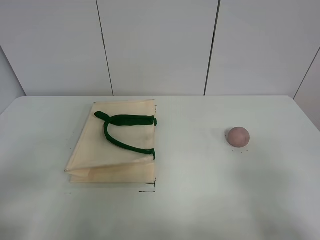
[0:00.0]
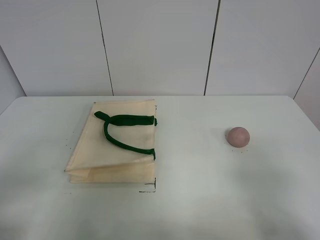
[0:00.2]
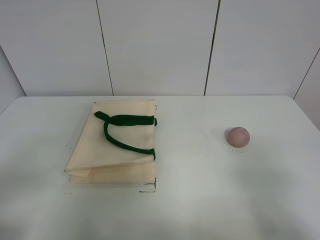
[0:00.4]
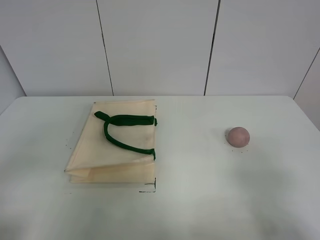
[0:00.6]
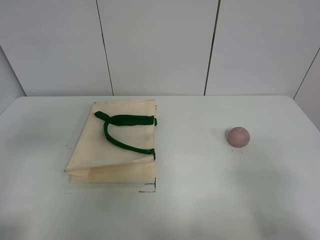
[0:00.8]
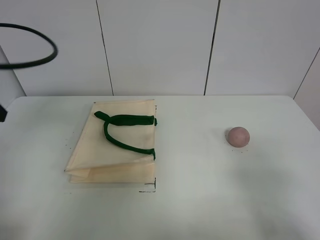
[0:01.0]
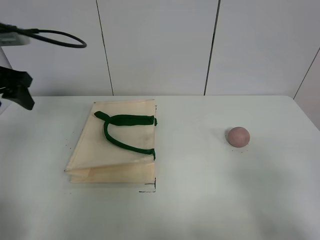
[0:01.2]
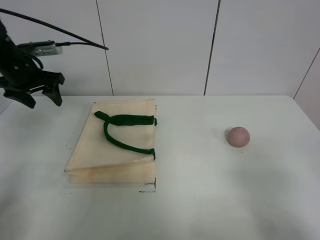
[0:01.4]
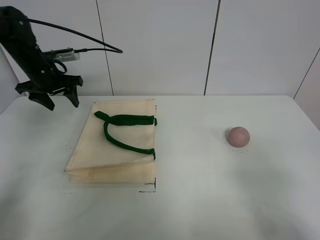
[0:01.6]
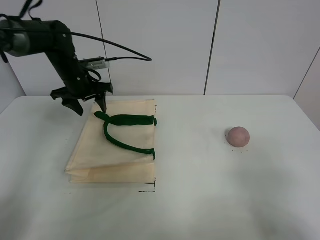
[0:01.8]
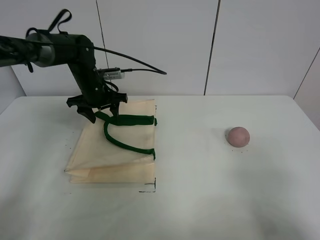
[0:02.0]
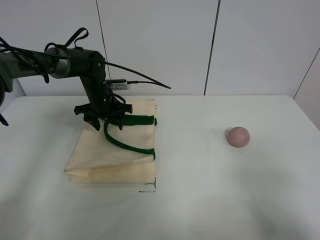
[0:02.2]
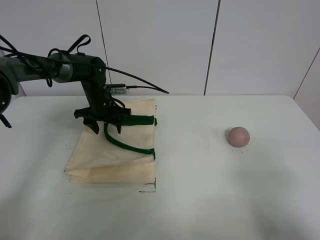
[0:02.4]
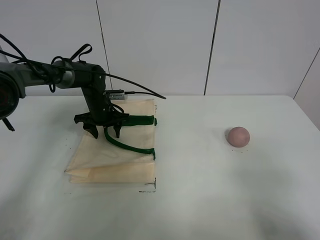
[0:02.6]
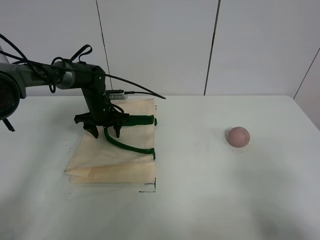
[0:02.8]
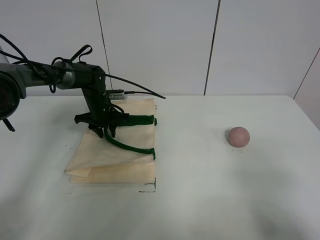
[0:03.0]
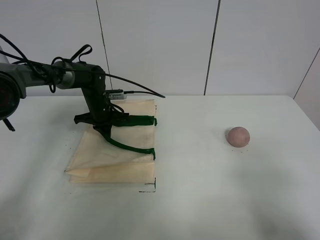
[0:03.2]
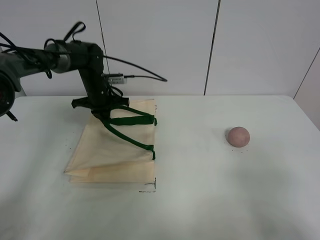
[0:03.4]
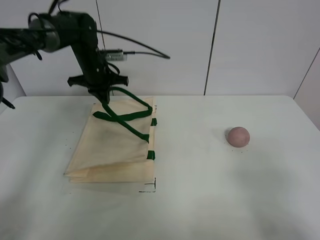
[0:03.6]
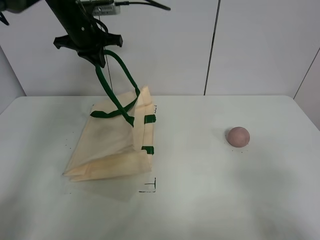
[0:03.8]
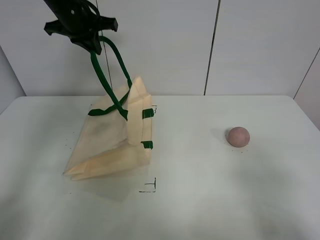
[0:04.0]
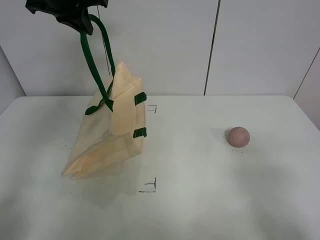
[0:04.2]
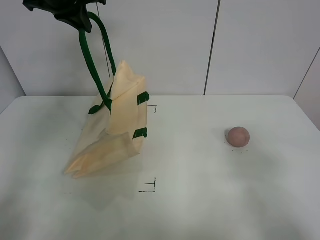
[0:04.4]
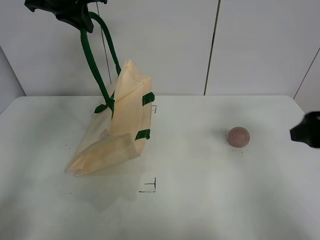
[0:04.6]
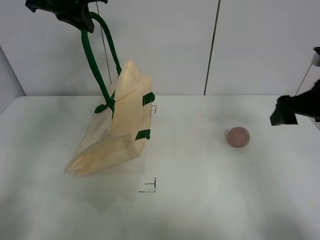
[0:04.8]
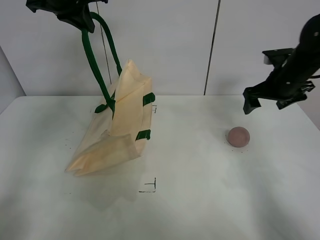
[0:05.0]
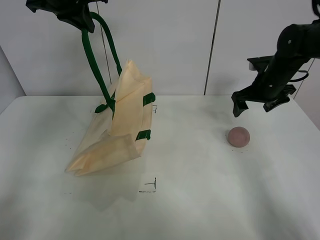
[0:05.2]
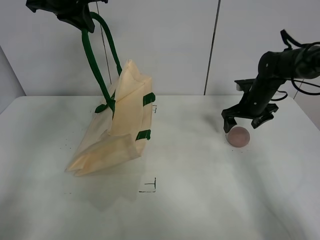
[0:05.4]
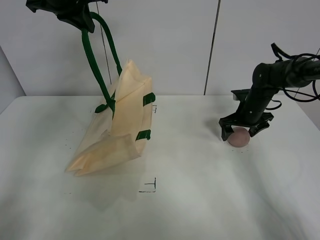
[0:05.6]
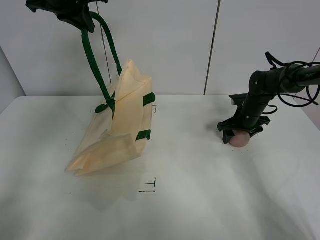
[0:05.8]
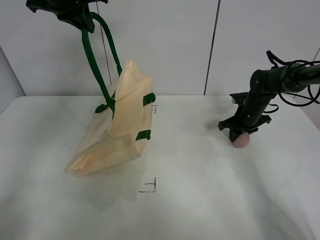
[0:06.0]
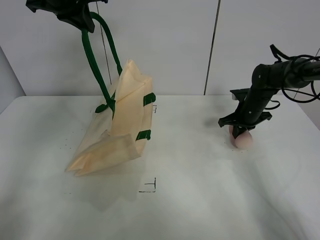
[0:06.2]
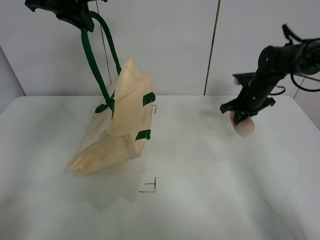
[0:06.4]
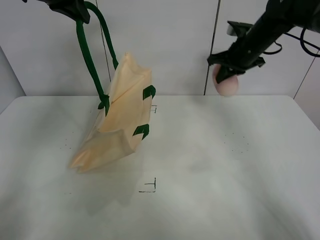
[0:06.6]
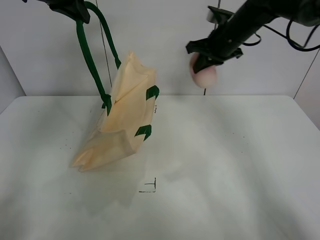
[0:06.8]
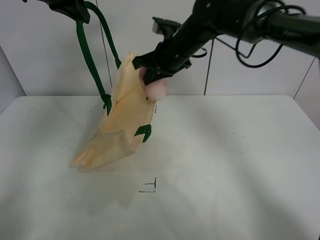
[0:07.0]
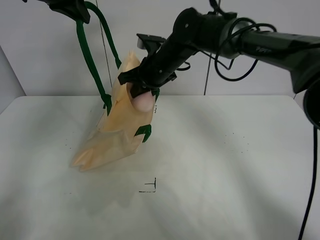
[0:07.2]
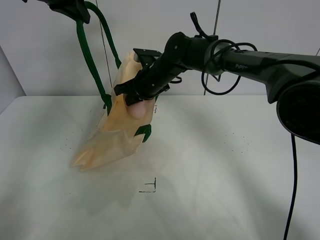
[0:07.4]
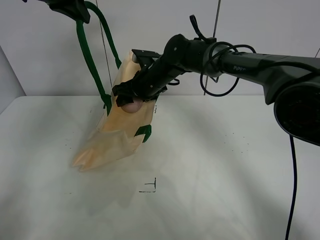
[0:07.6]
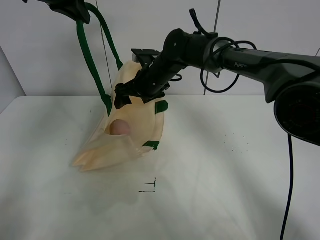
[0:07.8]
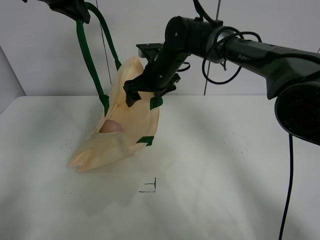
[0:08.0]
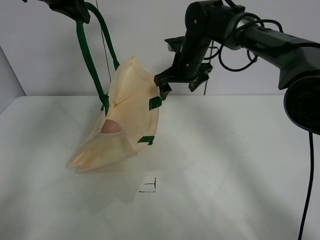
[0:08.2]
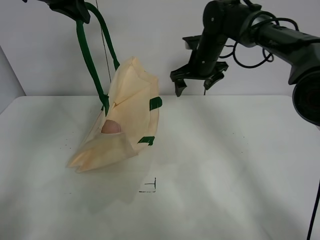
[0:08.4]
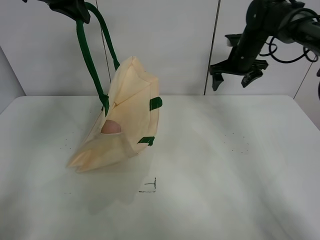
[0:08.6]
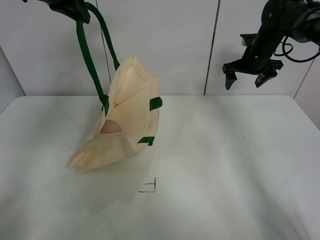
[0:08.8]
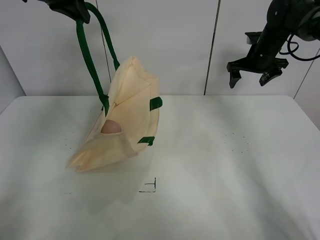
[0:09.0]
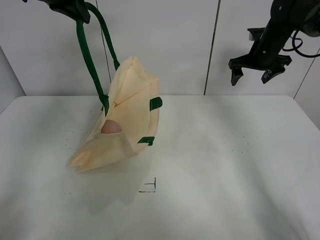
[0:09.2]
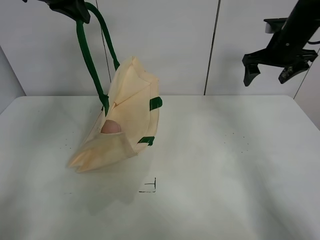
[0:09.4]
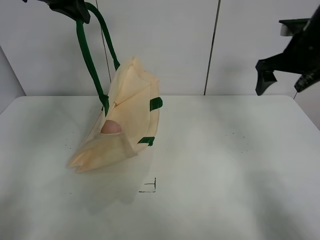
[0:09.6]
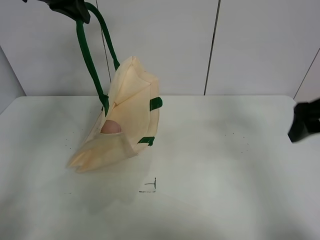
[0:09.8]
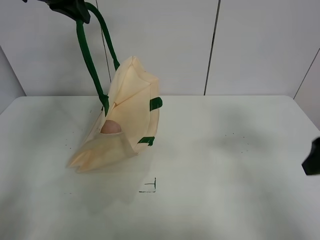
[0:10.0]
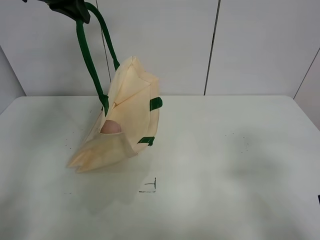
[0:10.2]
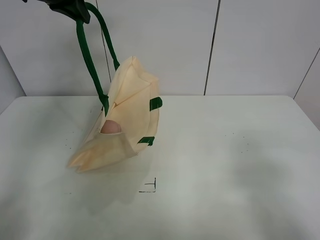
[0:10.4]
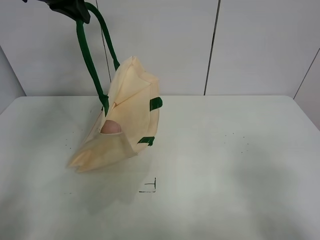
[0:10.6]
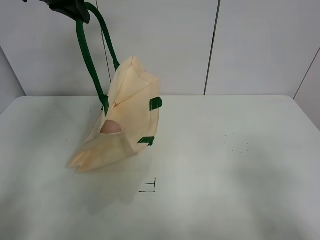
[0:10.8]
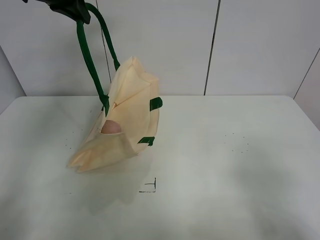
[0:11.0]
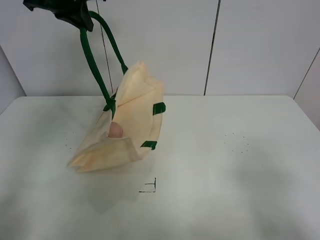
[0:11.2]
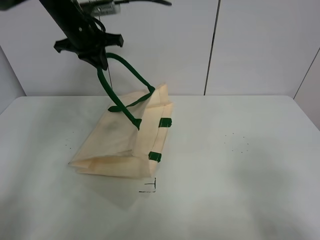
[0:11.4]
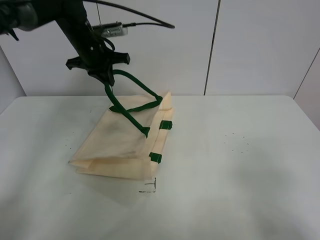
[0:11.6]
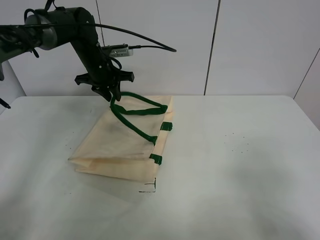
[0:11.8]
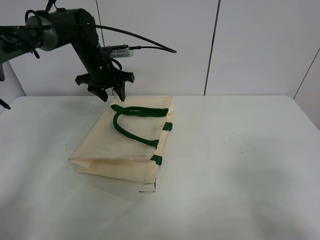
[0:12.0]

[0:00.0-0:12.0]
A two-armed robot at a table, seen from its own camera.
Task of the whole recording: open the white linen bag and put the peach in the bag.
Step, 0:00.0 to 0:04.2: Lift the handbag with left gripper.
Step, 0:04.4 to 0:06.0: Grasp the peach with right gripper.
Step, 0:06.2 to 0:08.0: Place the peach in the handbag with right gripper.
Step, 0:08.2 to 0:12.0: Put down the handbag with left gripper.
0:00.0 to 0:01.6: The left gripper shifts about 40 cm forward.
0:01.6 to 0:03.0: The left gripper heads downward and to the right, covering about 20 cm, and closes up.
0:03.0 to 0:04.4: The left gripper moves upward, about 30 cm, and closes. Meanwhile the right gripper heads forward, covering approximately 5 cm.
0:04.4 to 0:06.0: The right gripper goes some 40 cm forward and downward, and closes up.
0:06.0 to 0:07.6: The right gripper shifts roughly 30 cm to the left and upward, and opens.
0:07.6 to 0:09.0: The right gripper shifts about 30 cm to the right.
0:09.0 to 0:10.4: The right gripper shifts roughly 50 cm backward.
0:10.4 to 0:12.0: The left gripper is displaced downward and forward by about 20 cm, and opens its fingers.

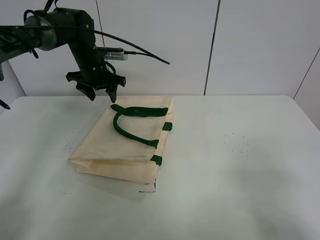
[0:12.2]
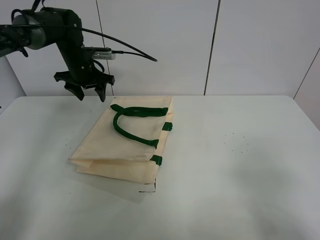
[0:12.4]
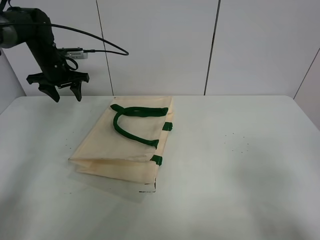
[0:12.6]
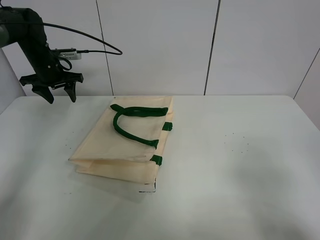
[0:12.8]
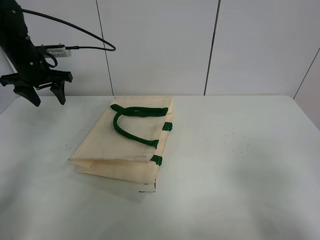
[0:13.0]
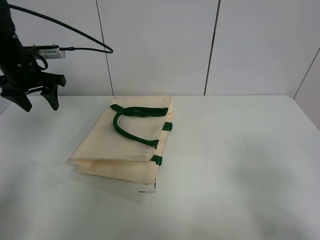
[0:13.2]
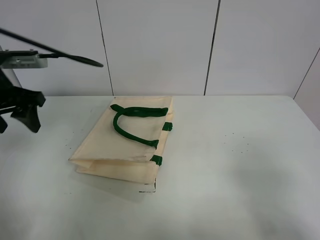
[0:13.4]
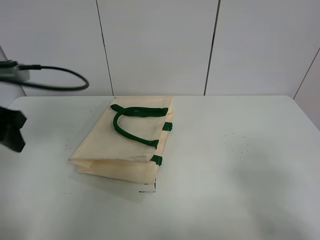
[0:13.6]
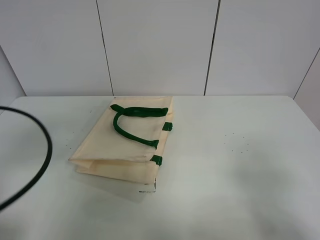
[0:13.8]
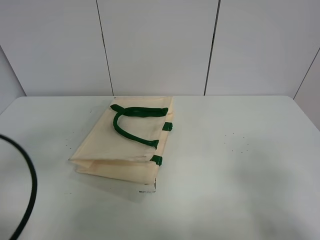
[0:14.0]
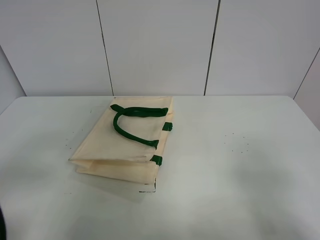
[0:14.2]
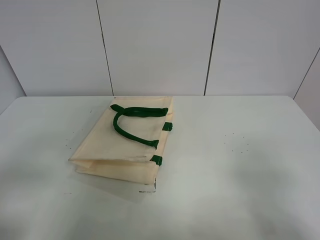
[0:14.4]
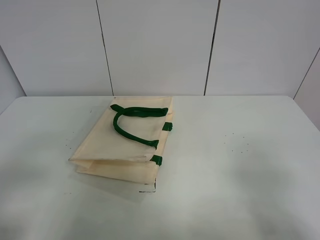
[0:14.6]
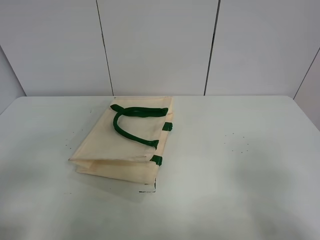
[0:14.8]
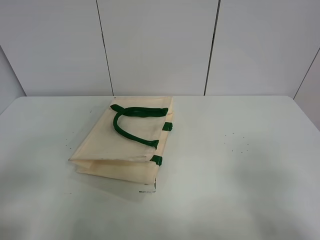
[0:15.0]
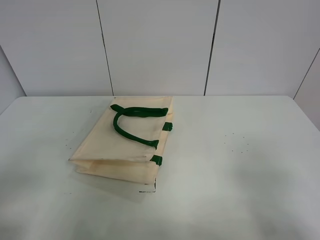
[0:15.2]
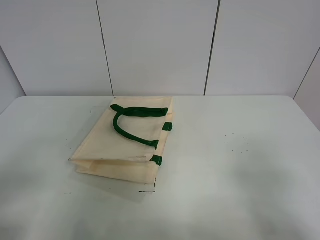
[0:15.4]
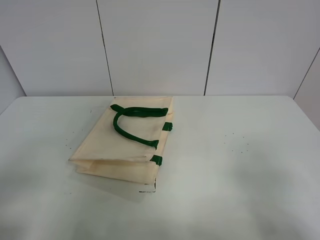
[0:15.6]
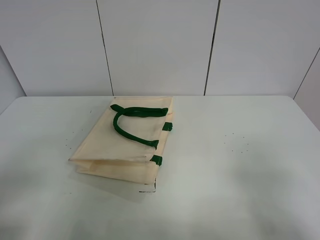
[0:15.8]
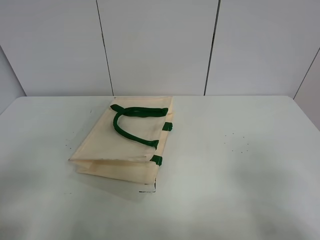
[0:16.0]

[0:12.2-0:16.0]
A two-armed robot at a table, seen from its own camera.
Task of the whole recording: open the white linen bag and put the peach in the bag.
0:12.2 to 0:13.4: The left gripper shifts roughly 20 cm backward and to the left.
0:13.4 to 0:14.8: The left gripper travels backward by some 25 cm.
